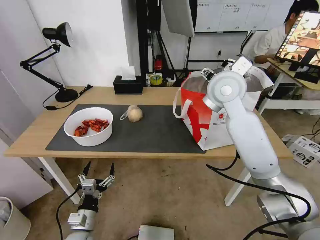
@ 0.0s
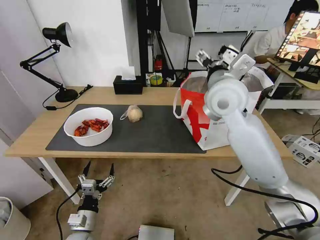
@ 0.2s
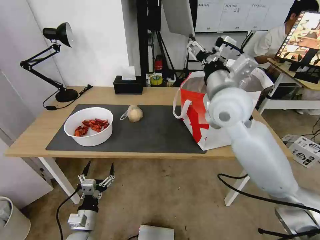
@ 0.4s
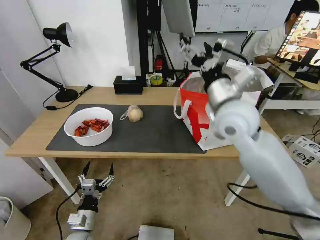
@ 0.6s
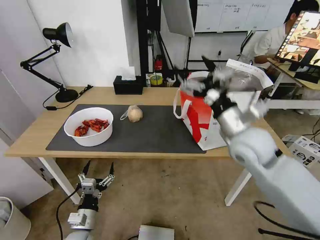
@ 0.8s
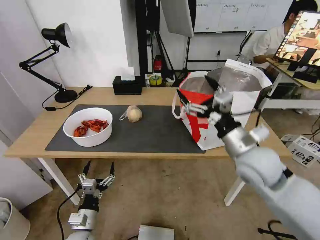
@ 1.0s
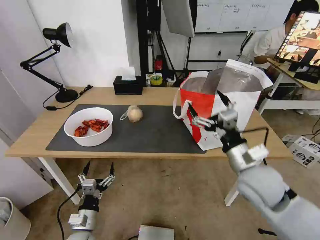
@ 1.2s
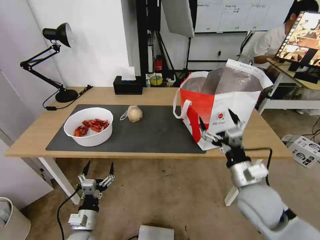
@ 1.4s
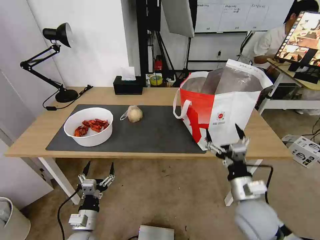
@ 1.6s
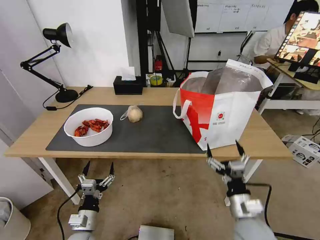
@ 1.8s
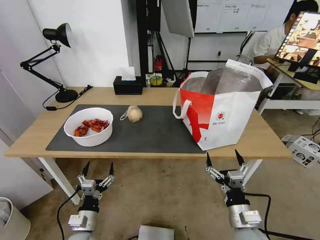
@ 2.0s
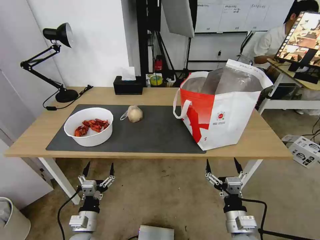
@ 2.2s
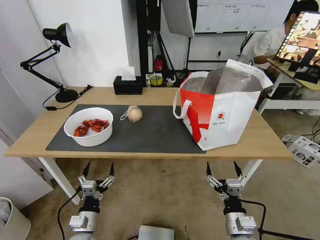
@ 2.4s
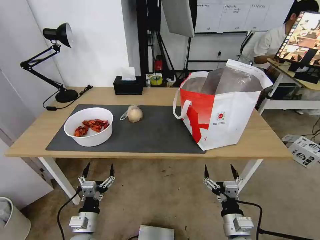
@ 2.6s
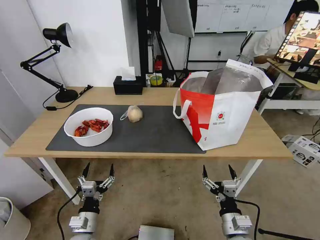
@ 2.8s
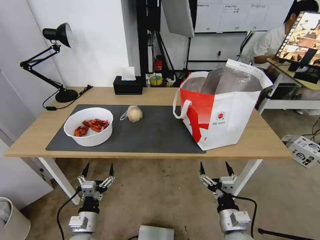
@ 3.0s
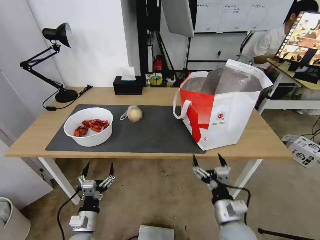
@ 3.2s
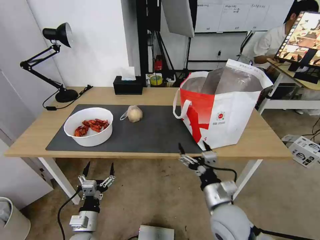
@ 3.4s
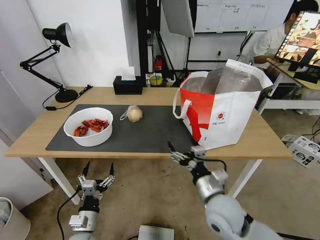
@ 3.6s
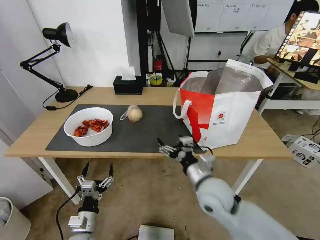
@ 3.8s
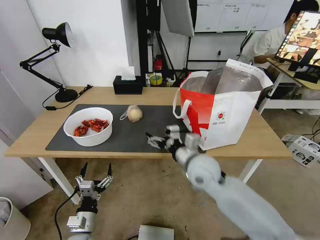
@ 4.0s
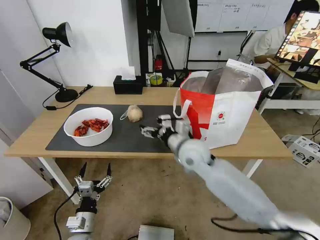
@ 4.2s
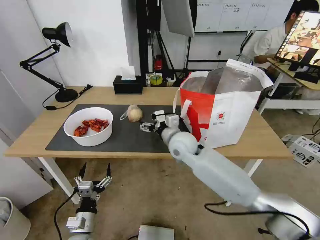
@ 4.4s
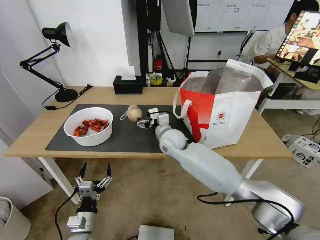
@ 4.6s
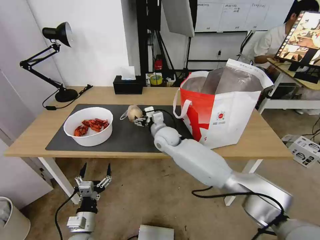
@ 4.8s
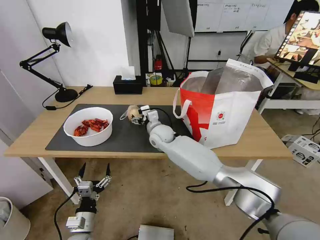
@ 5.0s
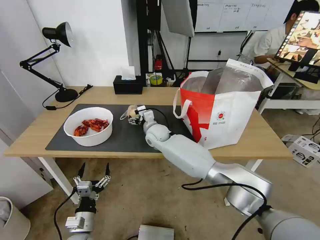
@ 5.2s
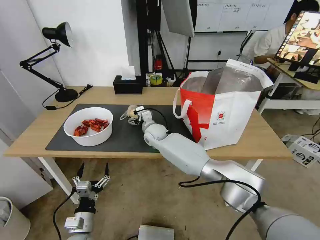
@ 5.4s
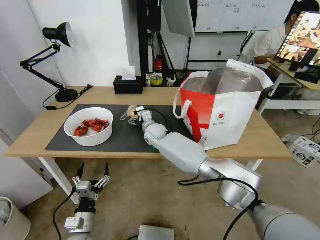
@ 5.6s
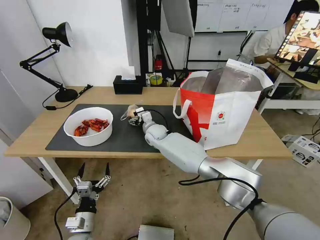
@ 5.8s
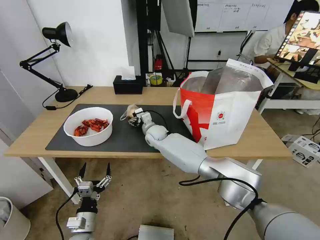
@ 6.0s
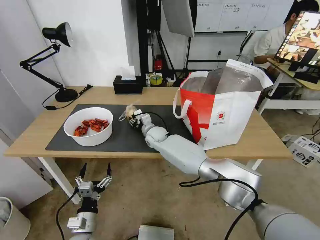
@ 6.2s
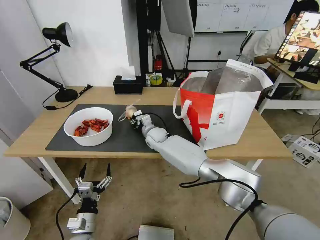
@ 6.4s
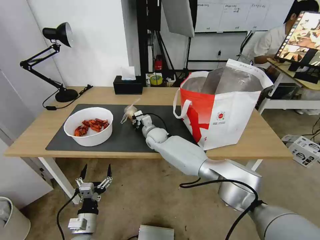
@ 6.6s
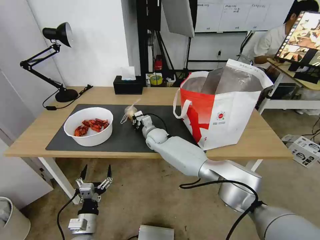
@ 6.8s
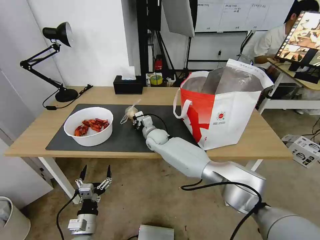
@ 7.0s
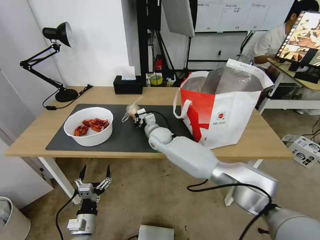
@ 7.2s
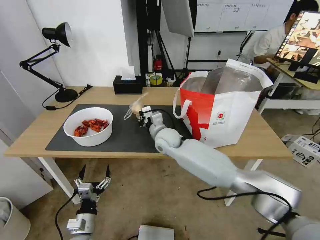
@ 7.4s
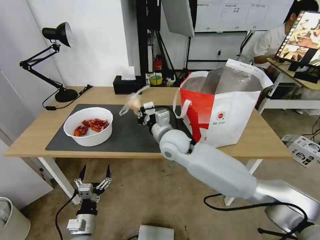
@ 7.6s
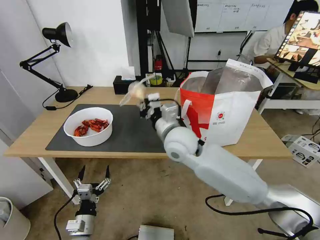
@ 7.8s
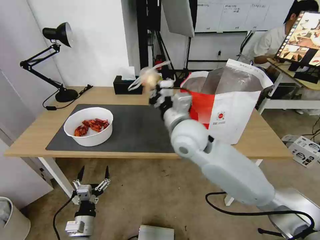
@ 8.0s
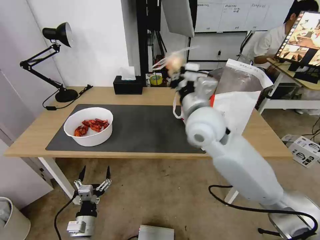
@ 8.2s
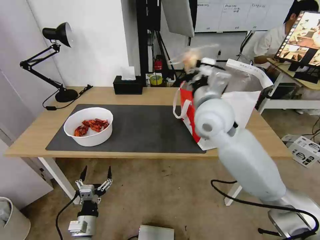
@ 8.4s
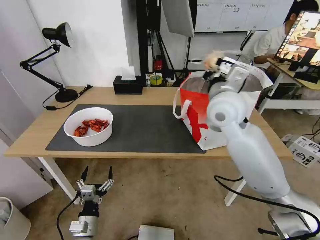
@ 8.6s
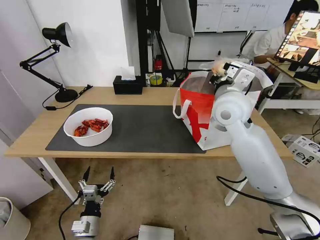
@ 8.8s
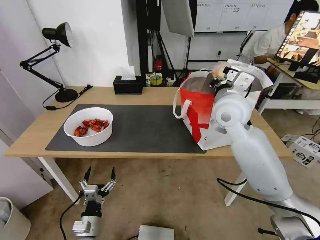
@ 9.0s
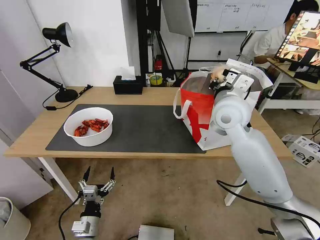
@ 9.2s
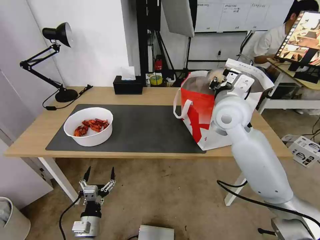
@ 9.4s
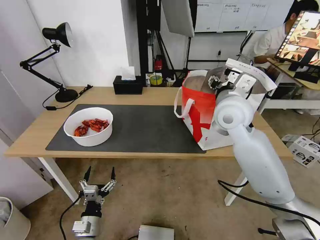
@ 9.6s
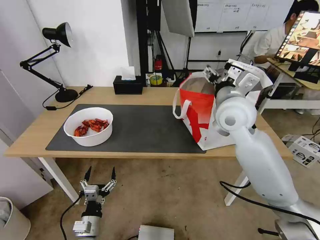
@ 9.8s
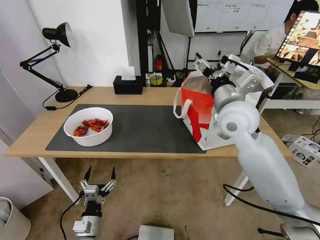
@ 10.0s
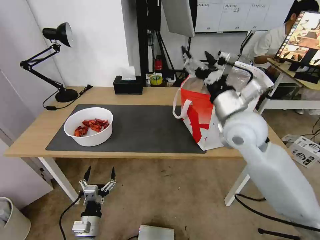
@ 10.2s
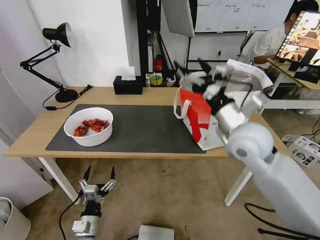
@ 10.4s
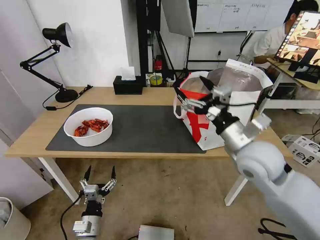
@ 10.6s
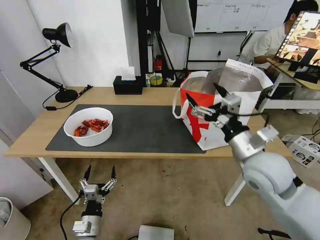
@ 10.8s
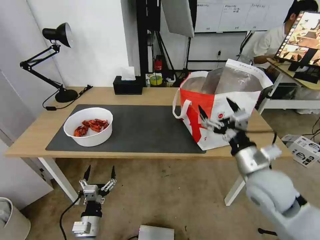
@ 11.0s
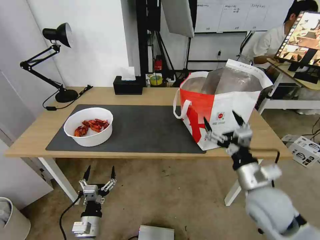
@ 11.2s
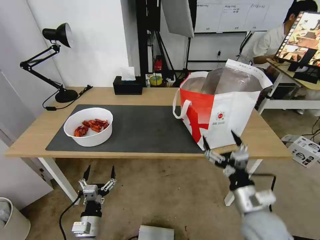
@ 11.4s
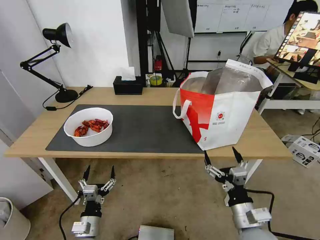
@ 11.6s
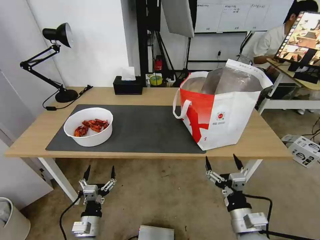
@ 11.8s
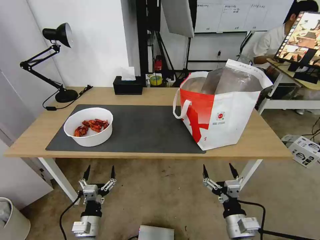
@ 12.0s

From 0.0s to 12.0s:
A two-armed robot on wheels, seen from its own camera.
Task of the whole recording: Pick up the trash from the table and place it into the takeout bag.
From 0.0s to 1.6s: The right gripper is displaced downward and backward by approximately 35 cm.
From 1.6s to 3.0s: The right gripper is displaced downward and backward by about 10 cm.
From 3.0s to 4.4s: The right gripper travels forward, to the left and upward by roughly 35 cm.
From 4.4s to 6.0s: The right gripper heads forward, to the left and downward, covering about 15 cm.
From 6.0s to 7.6s: The right gripper is displaced backward, upward and to the right by some 20 cm, and closes up.
From 7.6s to 9.0s: The right gripper moves to the right and upward, approximately 20 cm.
From 9.0s to 10.4s: The right gripper shifts roughly 10 cm backward, and opens up.
From 10.4s to 12.0s: The right gripper shifts some 30 cm downward and backward.

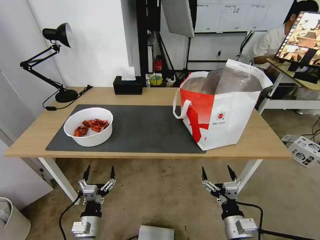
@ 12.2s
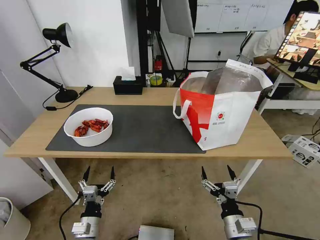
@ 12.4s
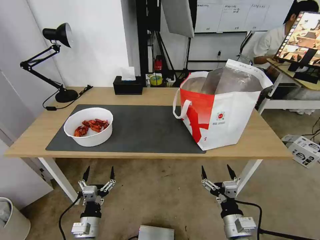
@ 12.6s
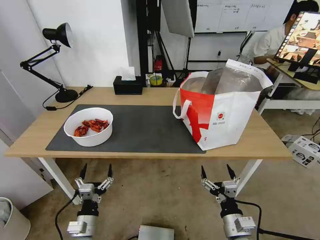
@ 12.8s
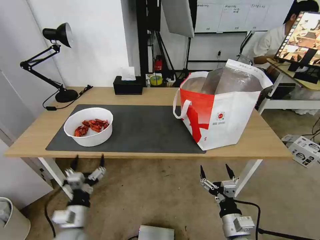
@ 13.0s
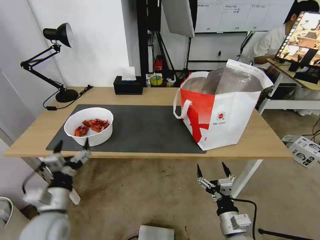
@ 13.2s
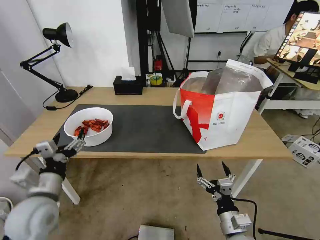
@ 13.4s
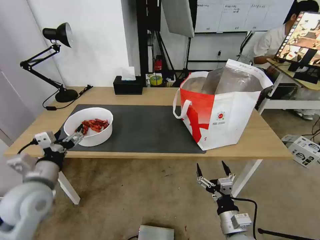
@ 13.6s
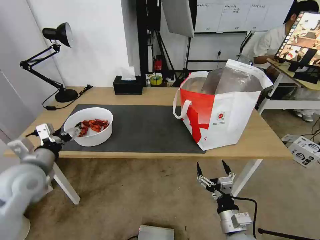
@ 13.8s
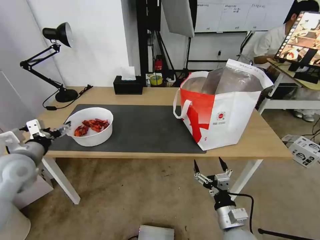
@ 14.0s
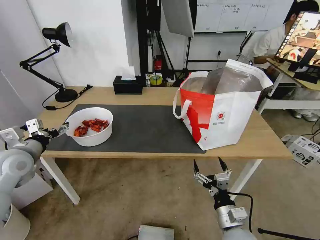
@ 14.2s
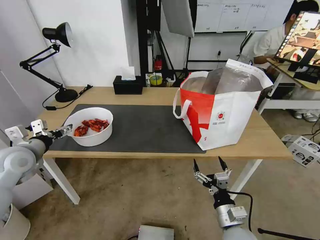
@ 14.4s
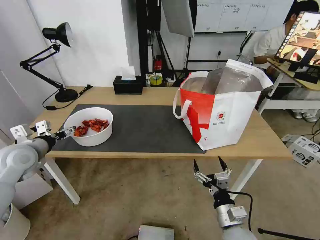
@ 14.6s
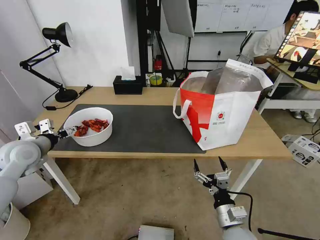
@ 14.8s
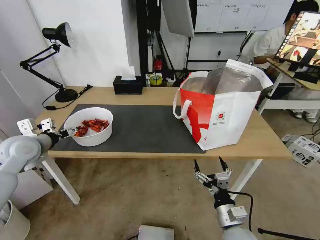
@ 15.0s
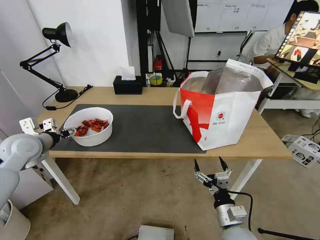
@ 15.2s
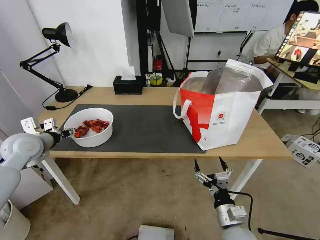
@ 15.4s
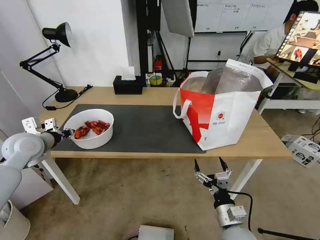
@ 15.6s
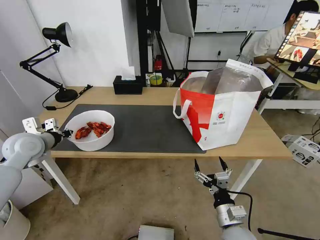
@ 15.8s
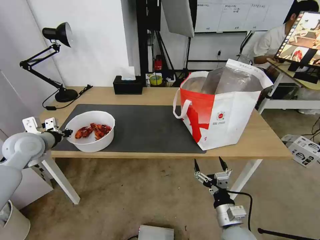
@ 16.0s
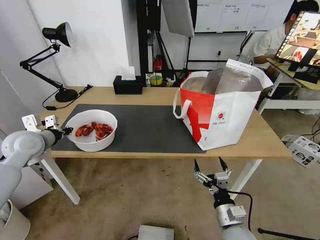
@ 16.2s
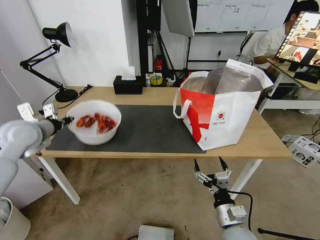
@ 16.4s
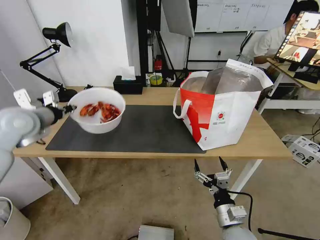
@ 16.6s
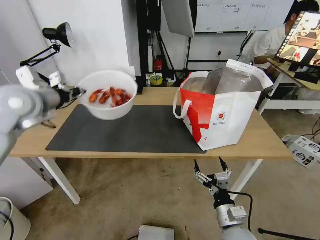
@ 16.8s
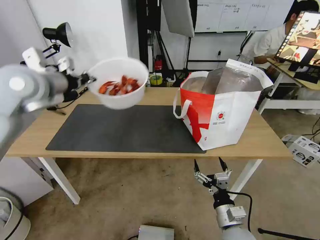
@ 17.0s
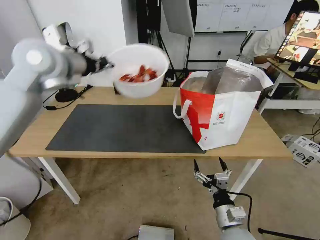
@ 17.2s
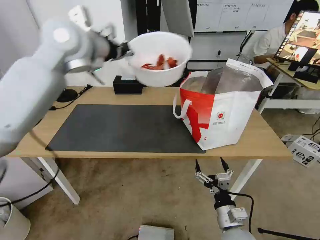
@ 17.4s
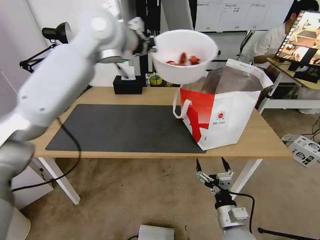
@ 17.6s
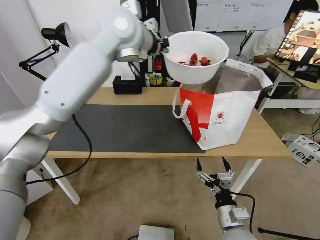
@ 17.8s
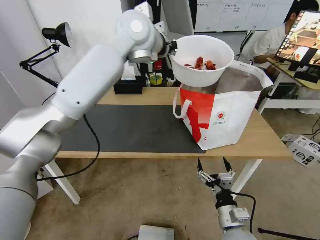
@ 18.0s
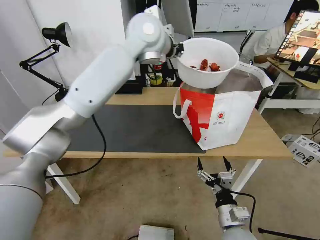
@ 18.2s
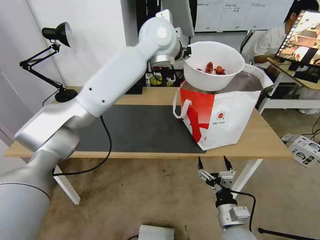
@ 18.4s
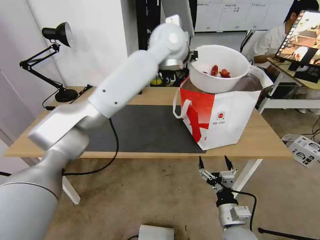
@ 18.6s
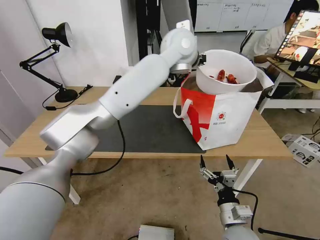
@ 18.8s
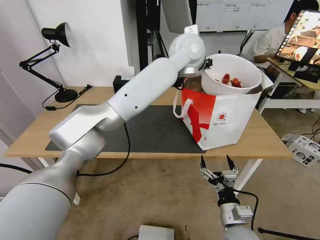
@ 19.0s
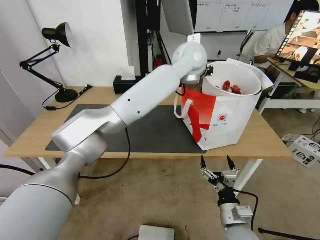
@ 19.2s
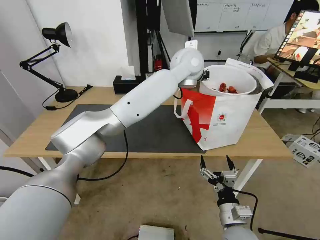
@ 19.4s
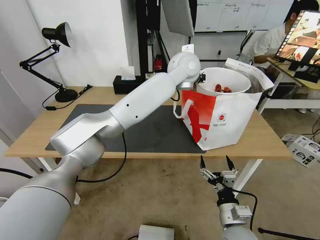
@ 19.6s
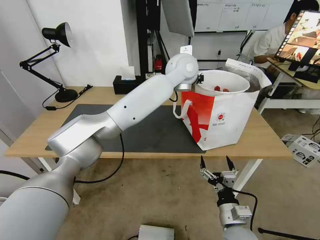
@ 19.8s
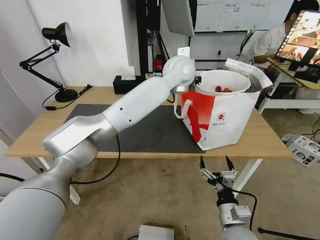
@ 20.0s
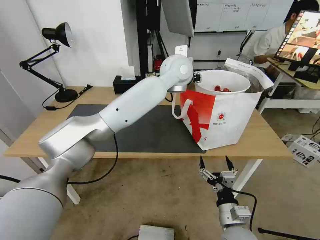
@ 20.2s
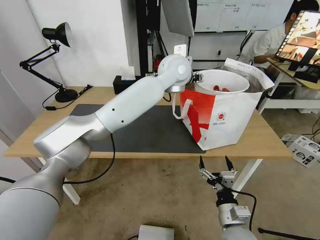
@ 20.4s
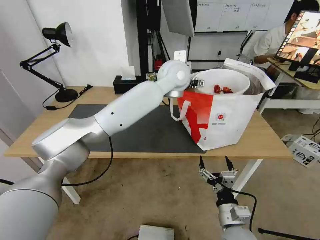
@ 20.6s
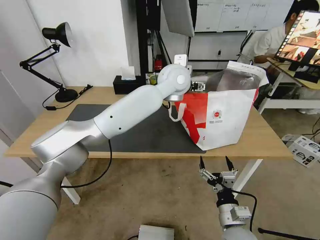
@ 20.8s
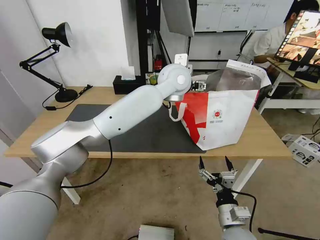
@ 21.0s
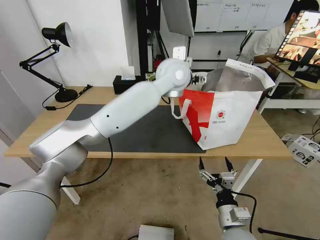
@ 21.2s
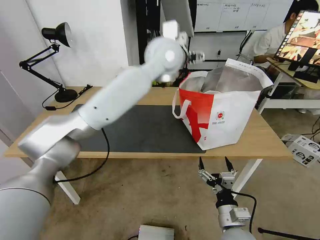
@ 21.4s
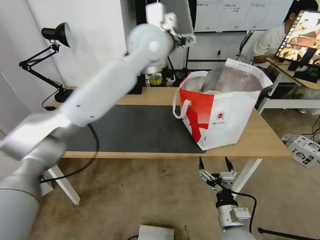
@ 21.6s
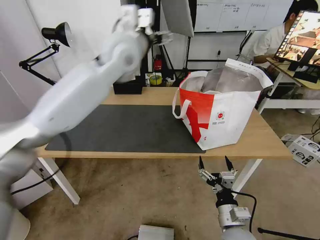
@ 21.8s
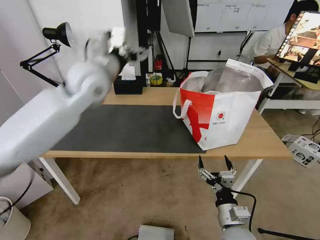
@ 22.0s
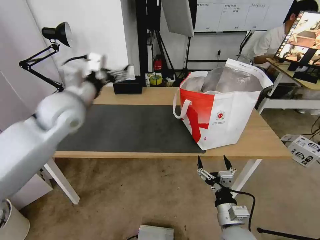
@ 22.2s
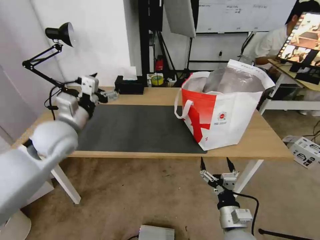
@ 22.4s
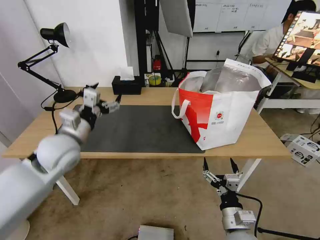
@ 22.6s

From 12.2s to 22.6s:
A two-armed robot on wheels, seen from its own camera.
Task of the whole recording: Pick up the trash from the table and place it into the takeout bag.
From 12.2s to 13.6s: The left gripper is displaced upward by approximately 20 cm.
From 13.6s to 15.2s: The left gripper moves forward and to the left, roughly 15 cm.
From 15.2s to 16.6s: The left gripper moves upward, approximately 10 cm, and closes its fingers.
From 16.6s to 18.2s: The left gripper moves to the right and upward, approximately 40 cm.
From 18.2s to 19.6s: The left gripper goes approximately 15 cm to the right and downward.
From 19.6s to 21.2s: The left gripper shifts by about 5 cm, and opens up.
From 21.2s to 22.6s: The left gripper heads to the left, backward and downward, covering roughly 40 cm.
